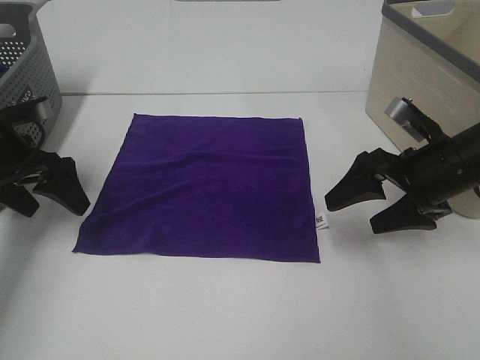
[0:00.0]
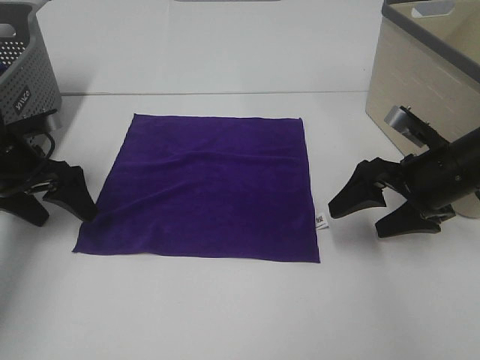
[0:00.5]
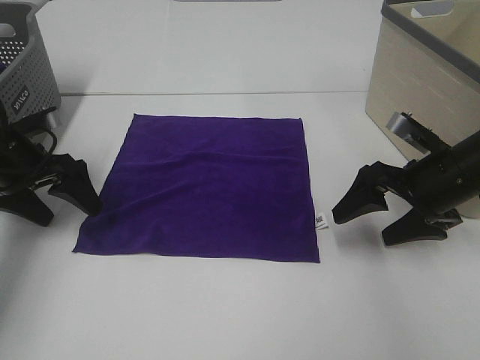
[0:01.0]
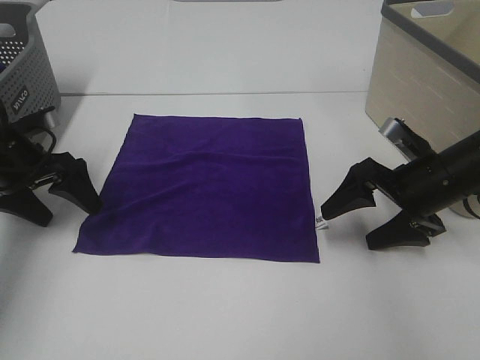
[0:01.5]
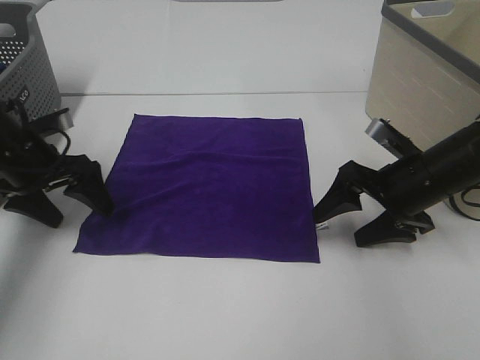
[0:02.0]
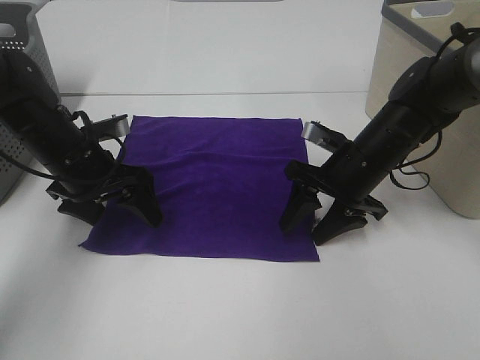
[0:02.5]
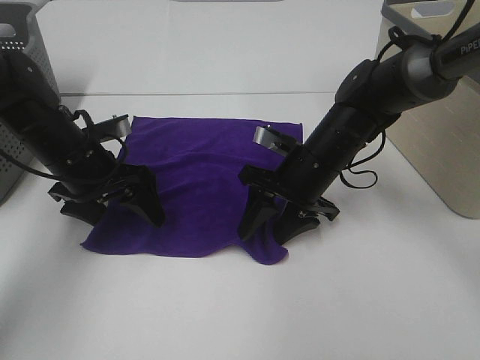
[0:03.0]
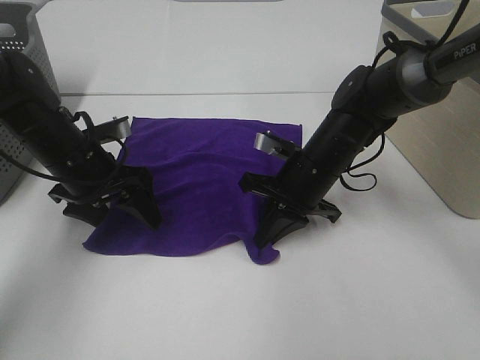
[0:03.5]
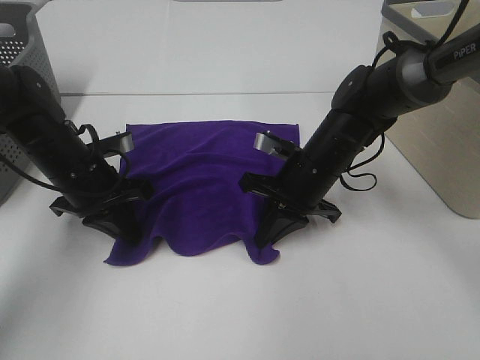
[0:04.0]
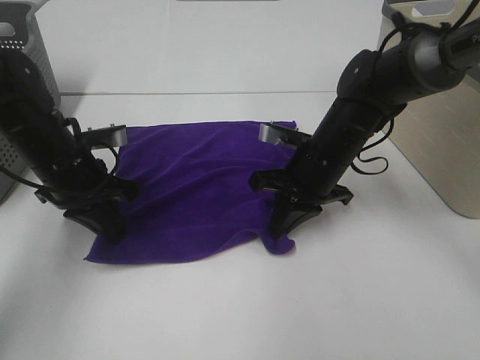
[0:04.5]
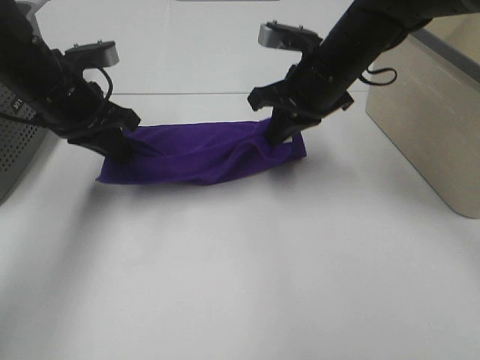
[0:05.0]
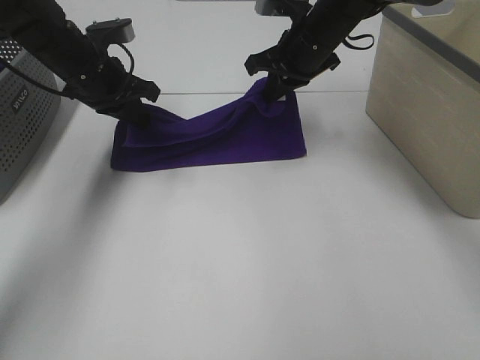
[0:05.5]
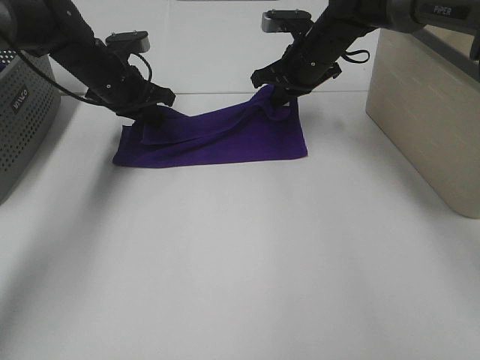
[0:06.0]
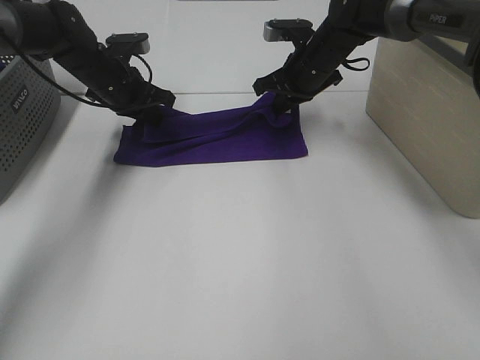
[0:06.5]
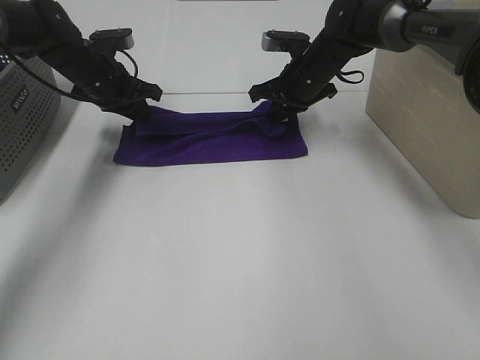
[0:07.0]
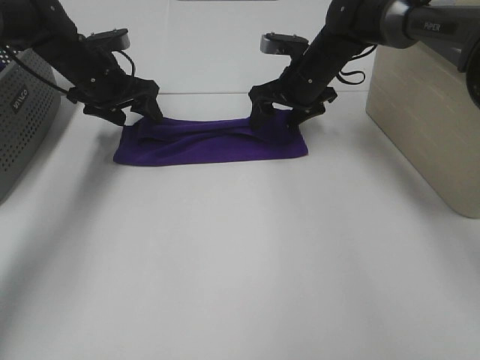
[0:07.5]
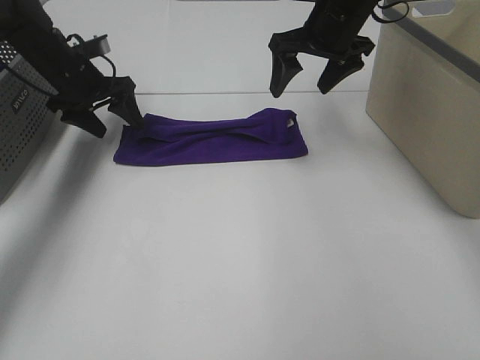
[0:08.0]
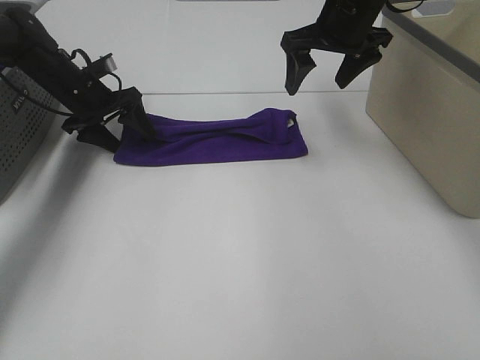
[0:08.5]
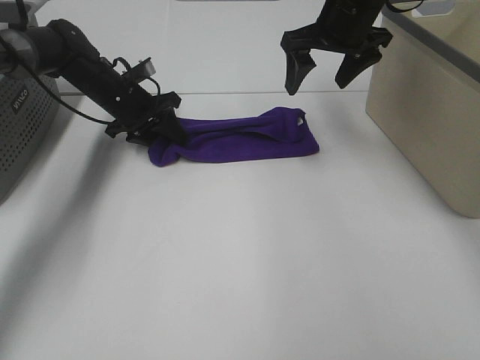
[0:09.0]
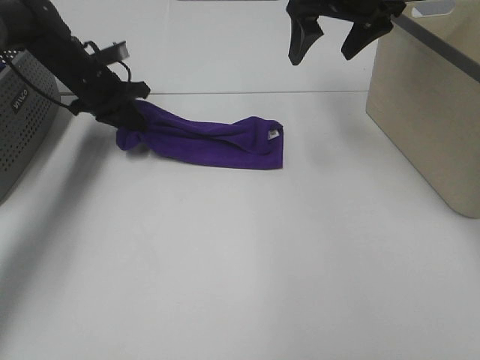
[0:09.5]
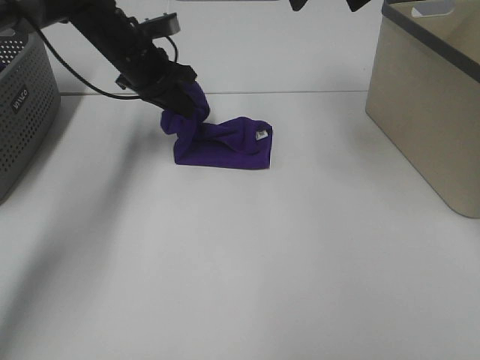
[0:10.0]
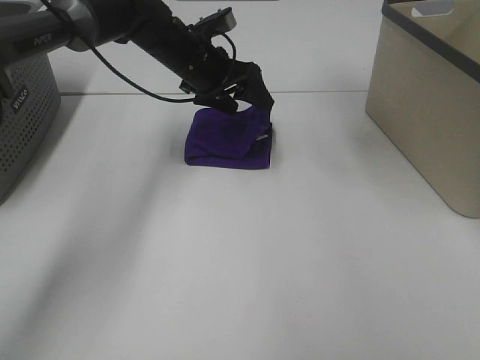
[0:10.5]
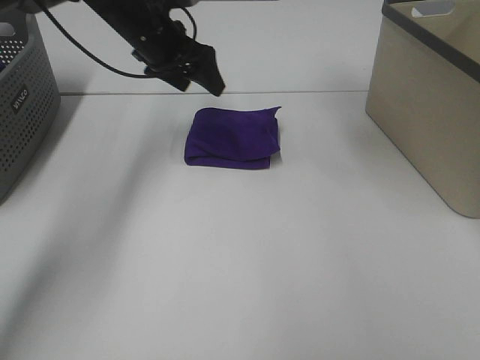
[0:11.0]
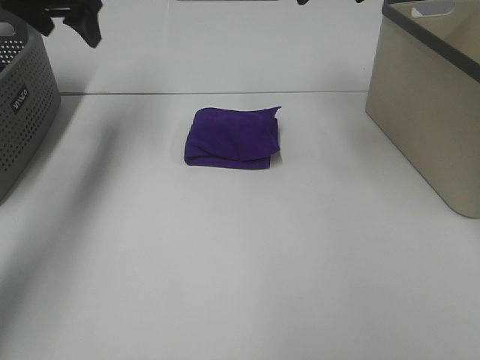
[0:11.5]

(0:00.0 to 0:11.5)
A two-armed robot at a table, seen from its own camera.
Task of the whole recording: Fold towels.
Step, 0:00.0 - 0:04.0: Left hand: grab the bottom left corner of purple towel.
Step, 0:00.0 - 0:04.0: Right hand: grab the bottom right corner of purple towel.
Step, 0:04.5 - 0:06.5: Left hand: fold the purple towel up.
Step, 0:04.5 - 0:06.5: Right hand: fold the purple towel up.
Step, 0:07.0 - 0:10.0: Left hand: fold the purple towel from left to right.
0:00.0 - 0:02.0: The grippers make only small movements.
0:02.0 - 0:04.0: The left gripper moves to the right, roughly 5 cm, and closes up. The right gripper heads to the left, covering approximately 10 cm, and closes up.
0:04.0 - 0:06.0: The right gripper heads forward and upward, covering some 20 cm. Meanwhile the left gripper is displaced forward by approximately 15 cm.
0:06.0 - 0:07.5: The right gripper opens its fingers; the left gripper opens.
0:07.5 - 0:09.5: The right gripper is displaced upward by some 15 cm. The left gripper closes up.
0:09.5 - 0:11.5: The left gripper shifts approximately 15 cm upward, moves about 15 cm to the right and comes back, and opens its fingers. The right gripper goes some 5 cm upward.

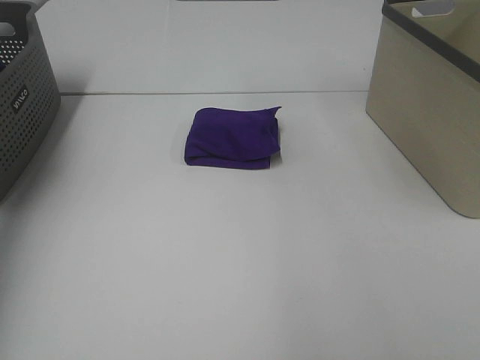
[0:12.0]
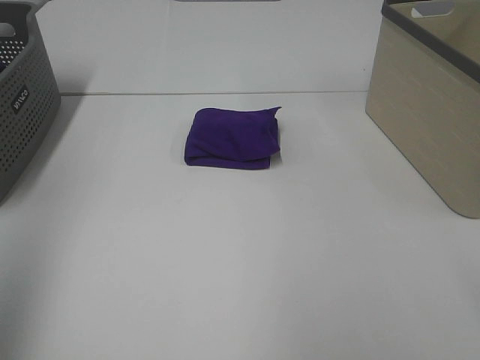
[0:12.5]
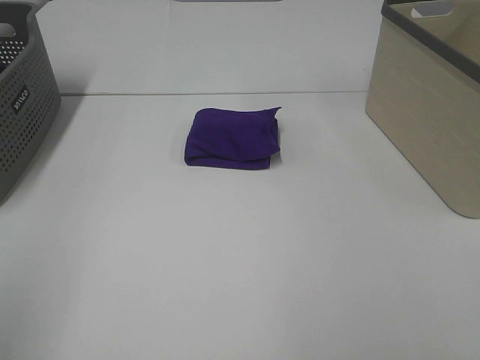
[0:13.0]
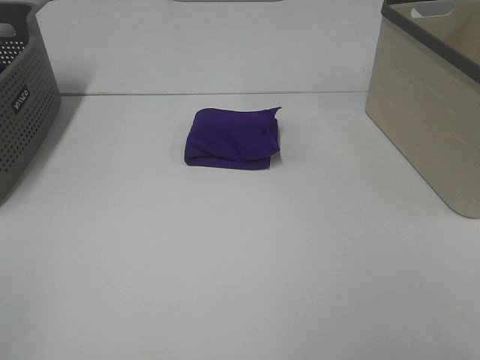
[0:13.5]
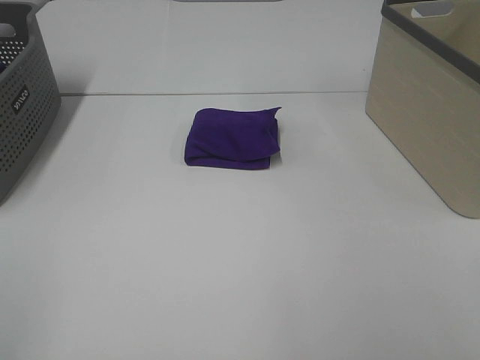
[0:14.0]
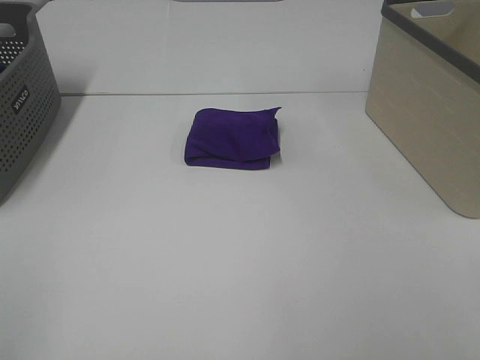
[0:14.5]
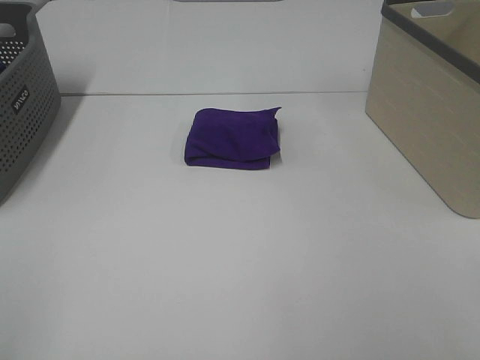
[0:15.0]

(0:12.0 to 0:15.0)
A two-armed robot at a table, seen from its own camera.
Task of the whole recording: Fold towels.
0:12.0 - 0:13.5: The left gripper is displaced backward by about 40 cm.
